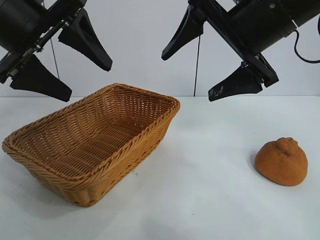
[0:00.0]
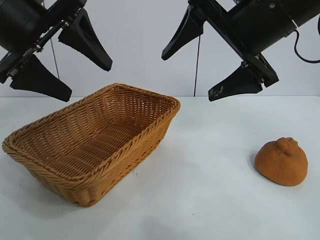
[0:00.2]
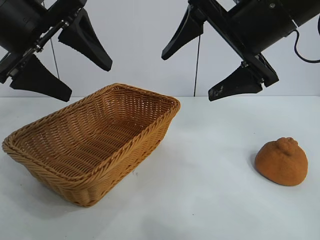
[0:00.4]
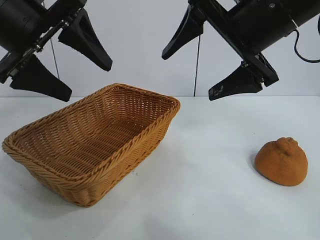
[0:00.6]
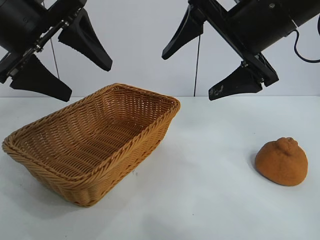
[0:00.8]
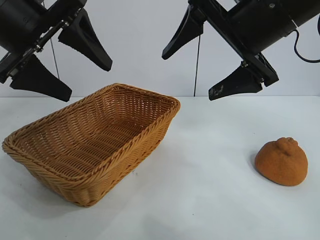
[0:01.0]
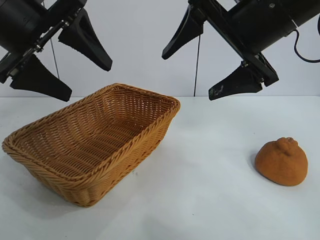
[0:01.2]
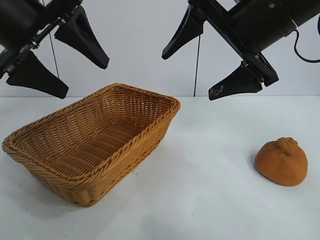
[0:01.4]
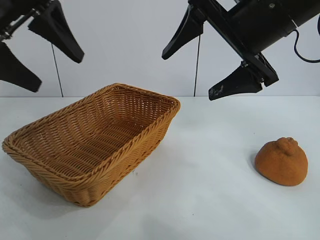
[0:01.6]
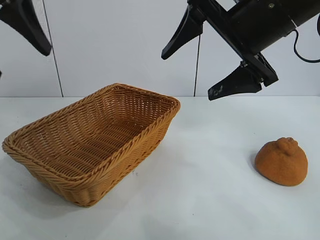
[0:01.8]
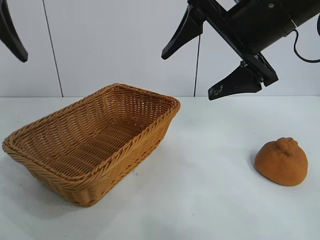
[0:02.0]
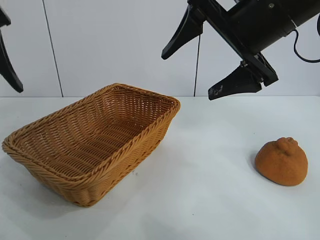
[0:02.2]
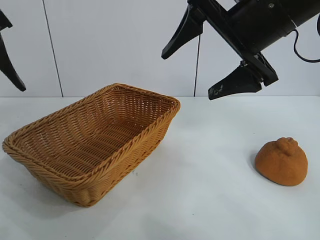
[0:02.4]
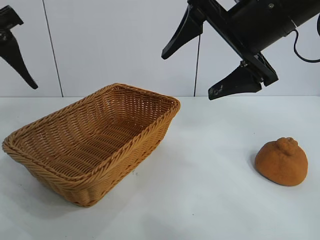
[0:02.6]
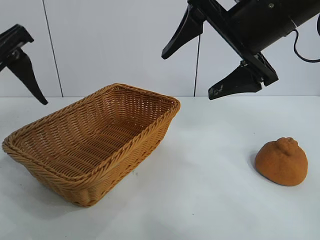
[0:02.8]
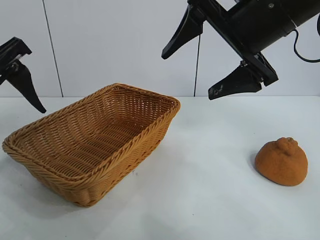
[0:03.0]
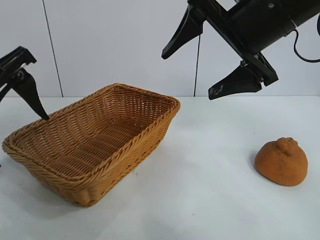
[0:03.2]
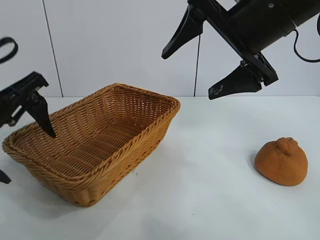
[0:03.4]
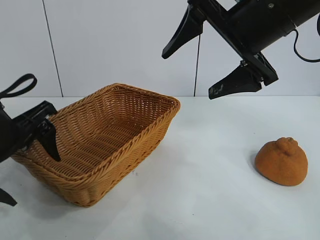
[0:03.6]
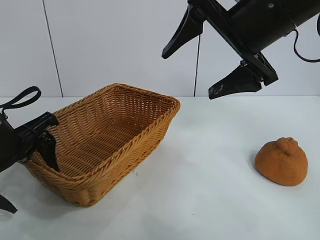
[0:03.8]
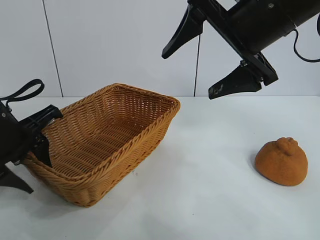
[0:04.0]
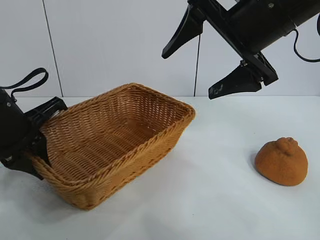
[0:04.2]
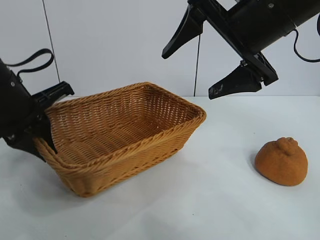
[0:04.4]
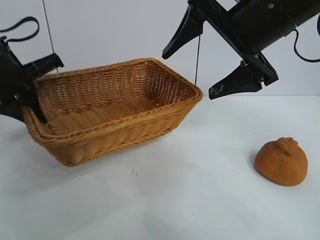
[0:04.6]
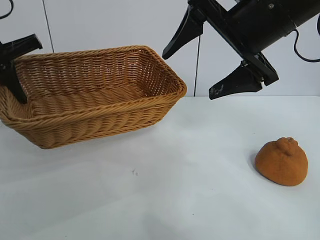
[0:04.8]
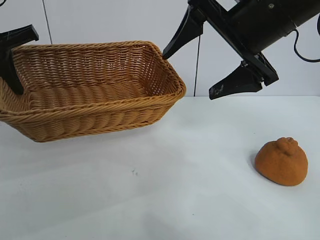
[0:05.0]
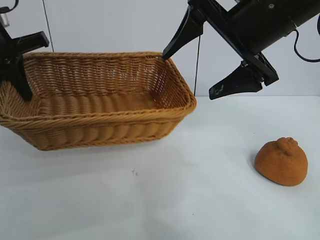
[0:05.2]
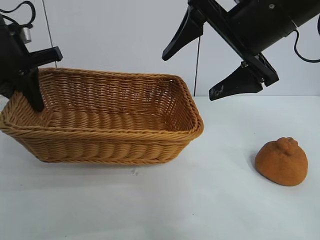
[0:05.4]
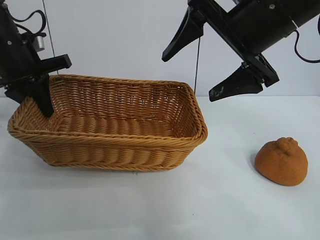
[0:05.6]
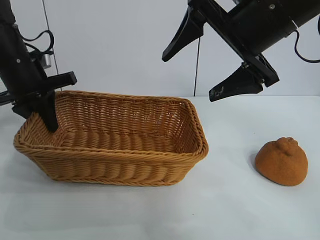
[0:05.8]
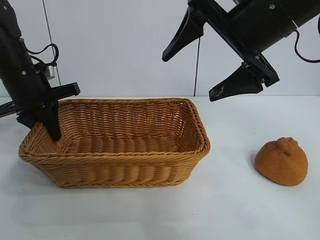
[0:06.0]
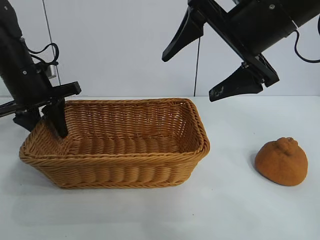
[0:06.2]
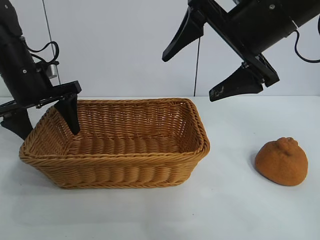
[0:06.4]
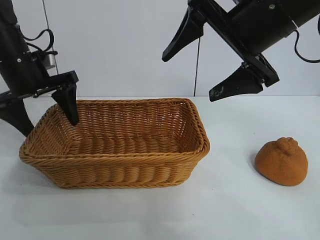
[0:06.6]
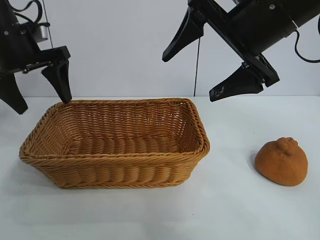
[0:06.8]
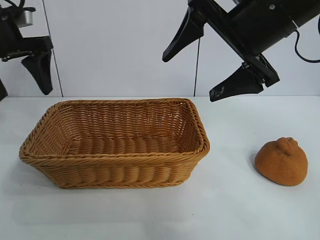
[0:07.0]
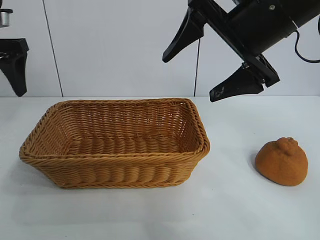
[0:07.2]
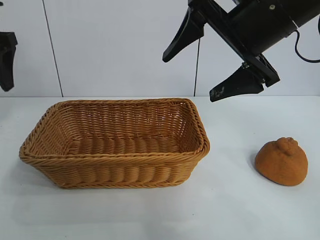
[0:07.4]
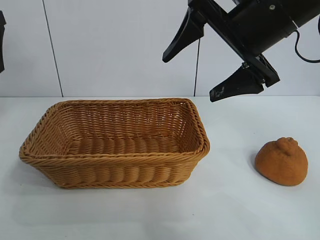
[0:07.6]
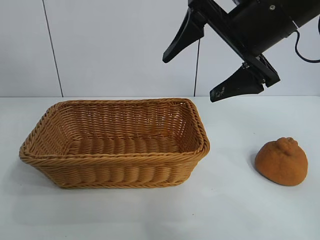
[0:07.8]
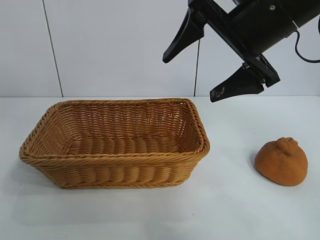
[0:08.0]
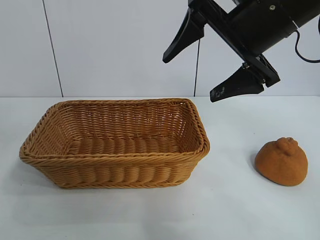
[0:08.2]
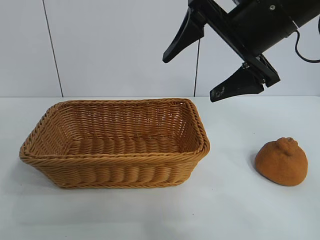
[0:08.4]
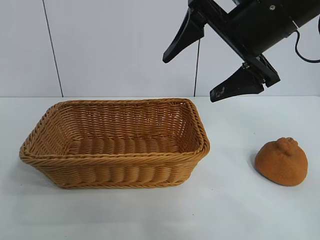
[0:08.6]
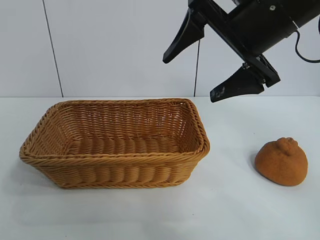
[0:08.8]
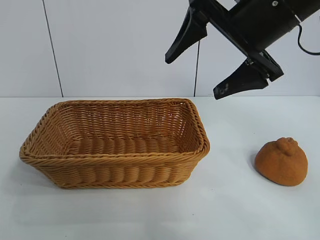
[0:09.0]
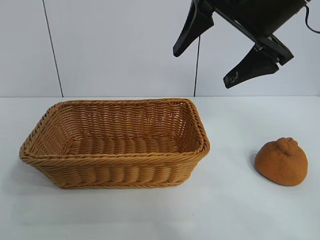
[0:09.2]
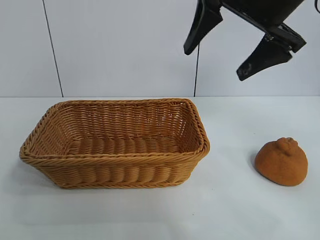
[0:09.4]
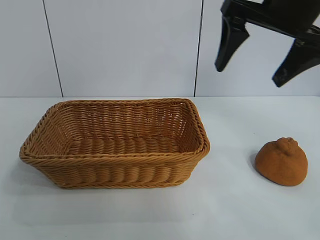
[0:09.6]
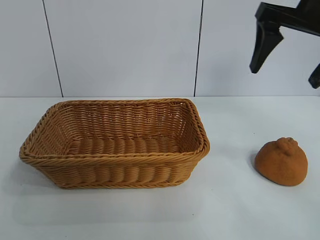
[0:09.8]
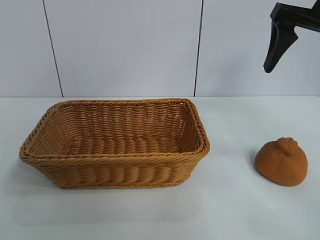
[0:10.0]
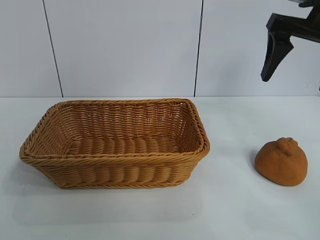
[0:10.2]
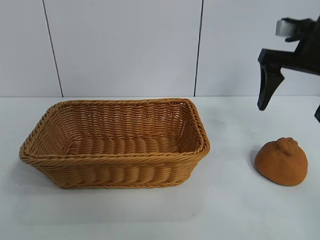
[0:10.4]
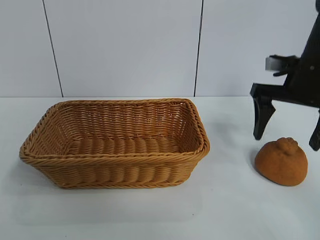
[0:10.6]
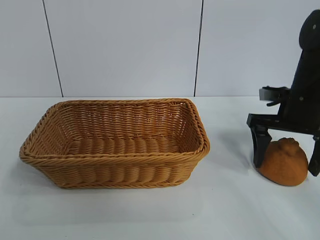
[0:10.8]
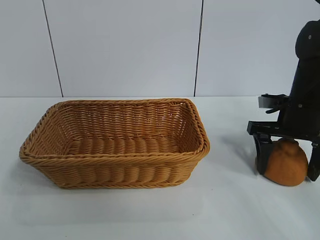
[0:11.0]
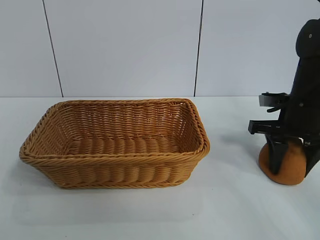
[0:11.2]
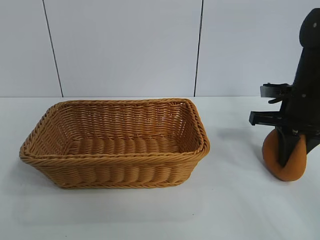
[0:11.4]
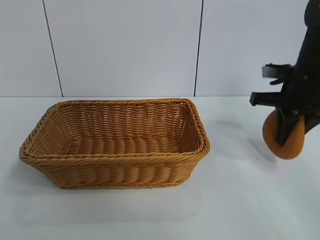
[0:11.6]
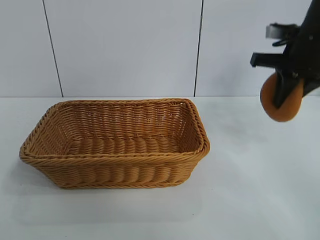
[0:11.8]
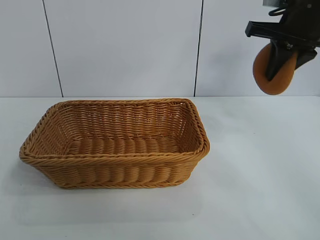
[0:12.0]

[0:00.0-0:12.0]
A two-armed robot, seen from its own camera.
Task of the whole recording: pick up the orange and put it into the basket.
Step, 0:00.6 to 0:04.2: Grasp the basket with left gripper.
Step, 0:04.4 to 0:06.2: Place the basket in the center of view with left gripper.
Step, 0:06.4 to 0:11.0: Grasp the orange with right gripper.

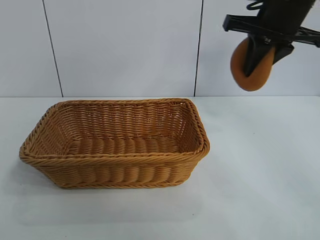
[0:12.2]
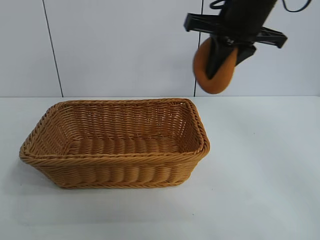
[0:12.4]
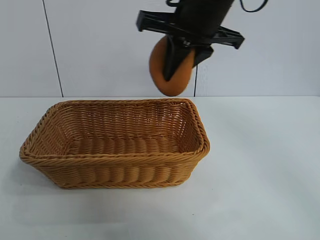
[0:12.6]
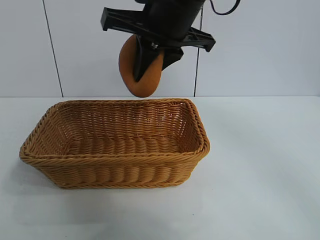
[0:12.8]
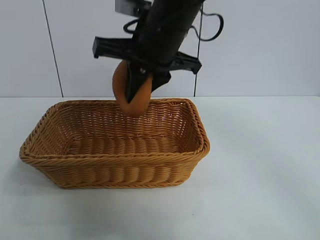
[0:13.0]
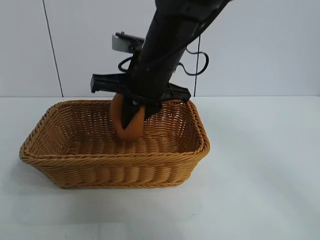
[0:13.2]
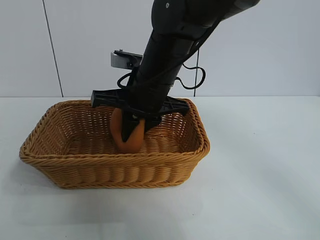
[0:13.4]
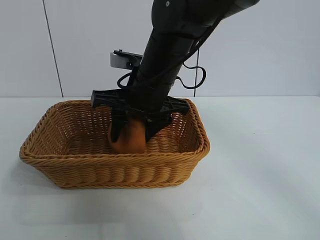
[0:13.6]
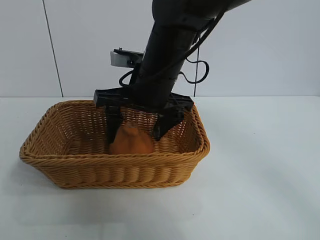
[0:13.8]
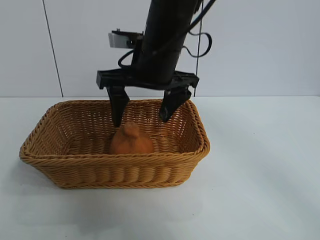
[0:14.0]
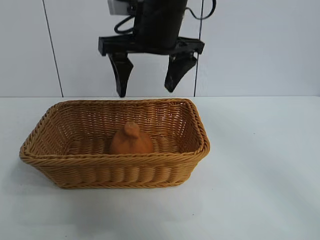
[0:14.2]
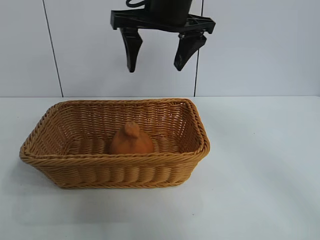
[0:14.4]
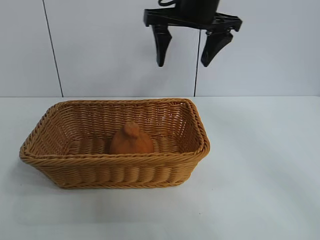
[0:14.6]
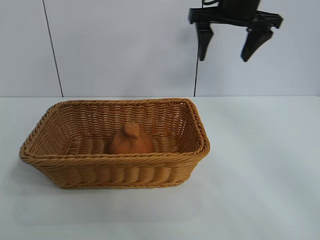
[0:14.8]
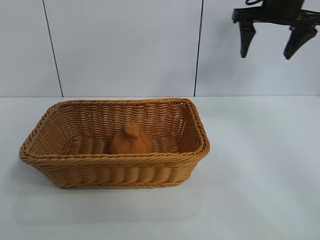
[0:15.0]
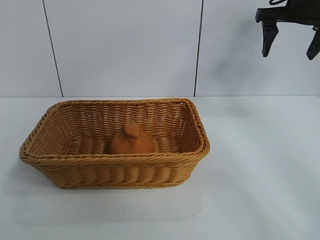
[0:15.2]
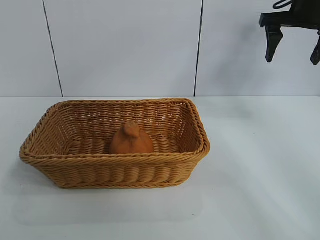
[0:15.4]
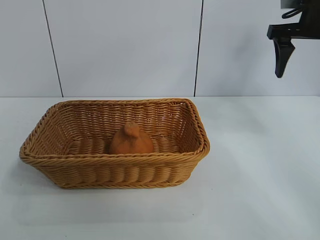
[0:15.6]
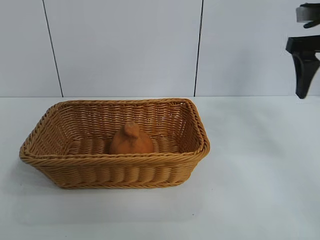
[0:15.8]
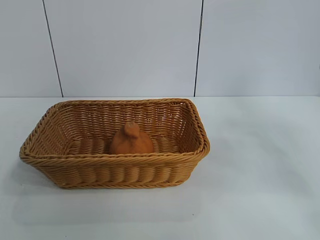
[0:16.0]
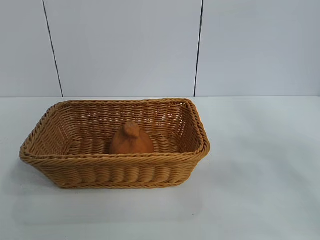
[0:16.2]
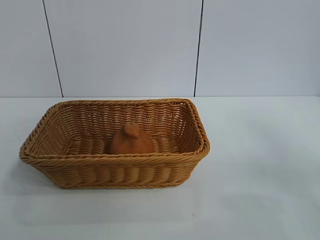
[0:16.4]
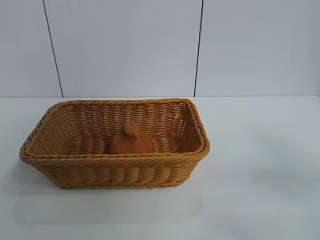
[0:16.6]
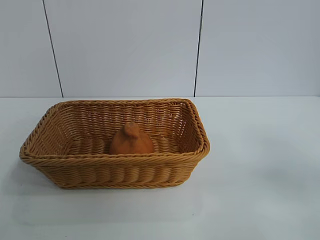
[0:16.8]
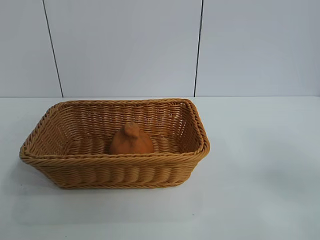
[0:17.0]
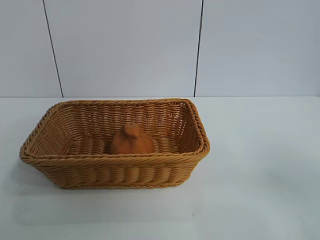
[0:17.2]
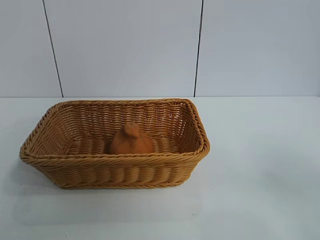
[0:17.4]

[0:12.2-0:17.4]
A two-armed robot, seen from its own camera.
Task of the whole recording: pick up the orange and put it into the basket.
Step, 0:12.2 to 0:14.0: Place the orange in the basket with right gripper.
